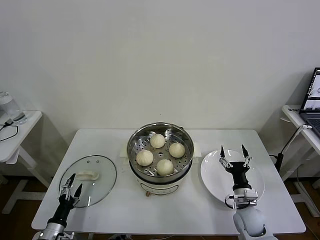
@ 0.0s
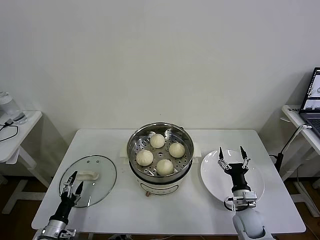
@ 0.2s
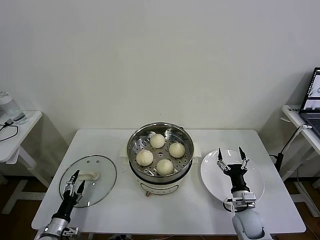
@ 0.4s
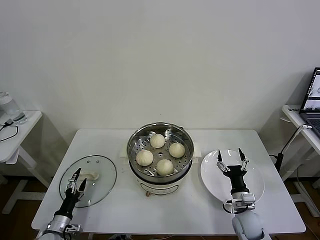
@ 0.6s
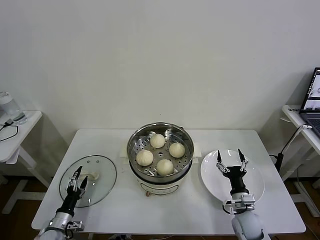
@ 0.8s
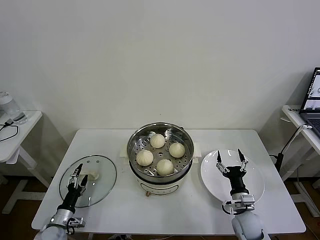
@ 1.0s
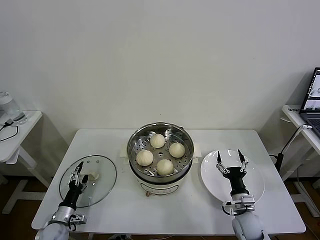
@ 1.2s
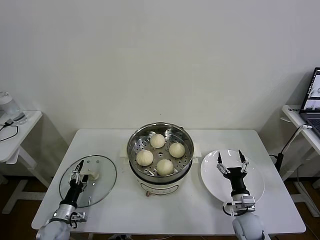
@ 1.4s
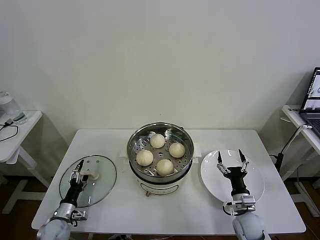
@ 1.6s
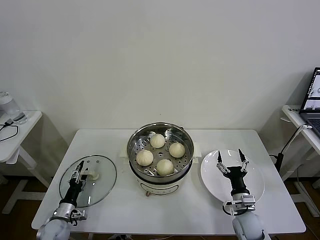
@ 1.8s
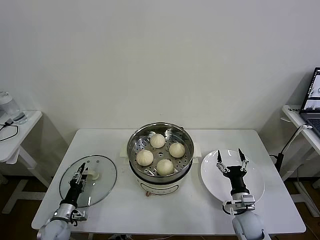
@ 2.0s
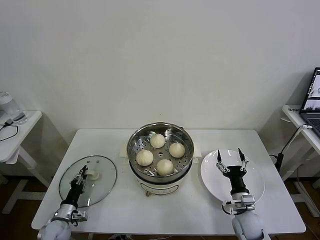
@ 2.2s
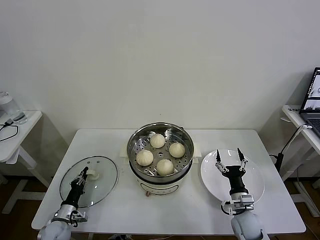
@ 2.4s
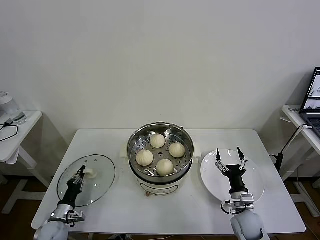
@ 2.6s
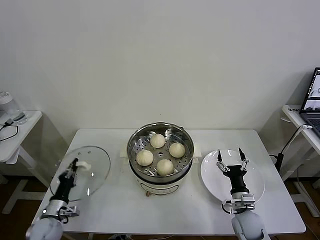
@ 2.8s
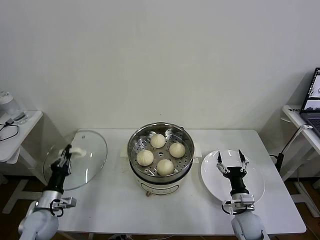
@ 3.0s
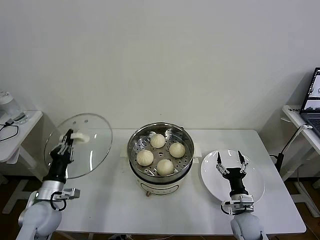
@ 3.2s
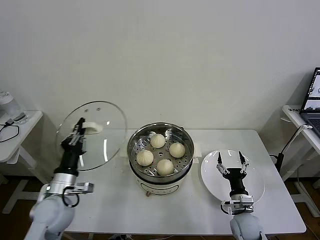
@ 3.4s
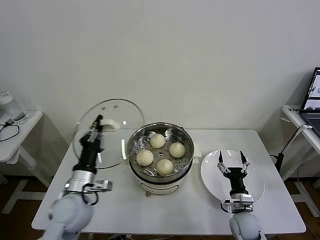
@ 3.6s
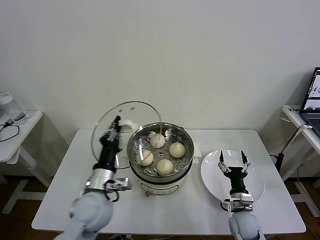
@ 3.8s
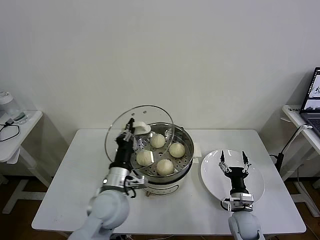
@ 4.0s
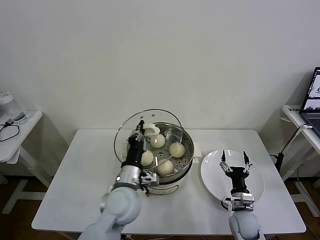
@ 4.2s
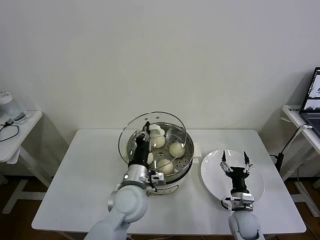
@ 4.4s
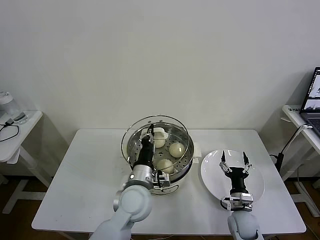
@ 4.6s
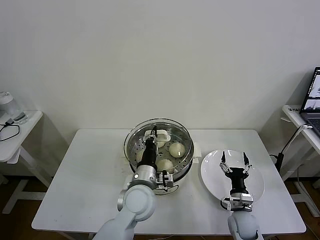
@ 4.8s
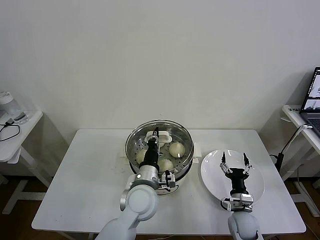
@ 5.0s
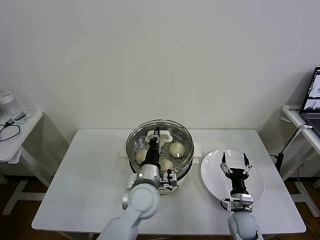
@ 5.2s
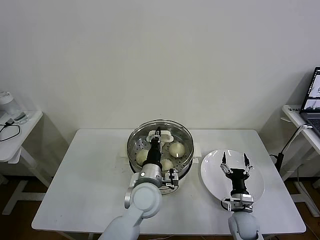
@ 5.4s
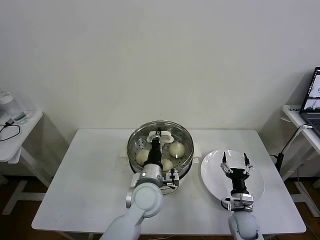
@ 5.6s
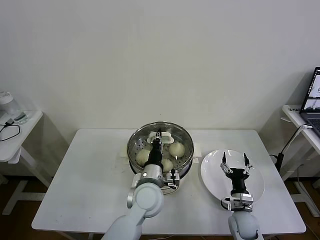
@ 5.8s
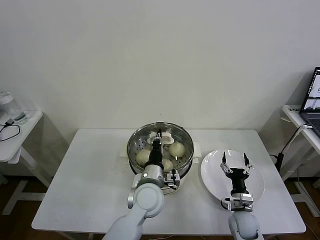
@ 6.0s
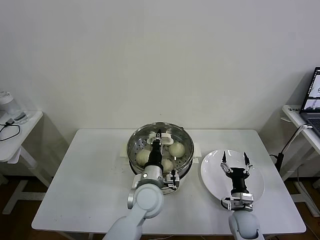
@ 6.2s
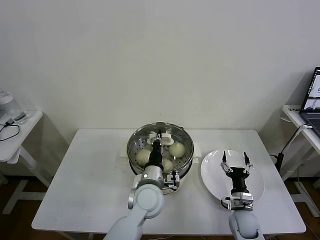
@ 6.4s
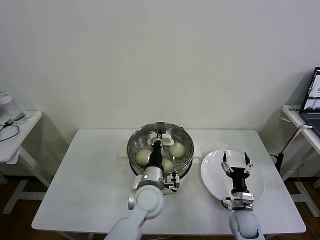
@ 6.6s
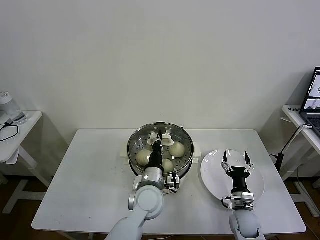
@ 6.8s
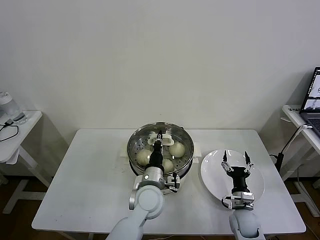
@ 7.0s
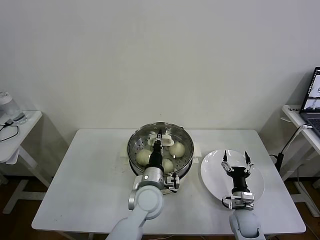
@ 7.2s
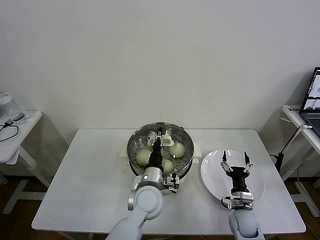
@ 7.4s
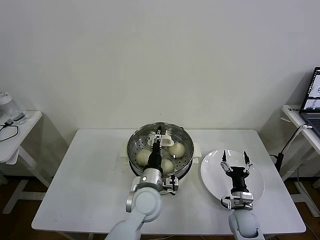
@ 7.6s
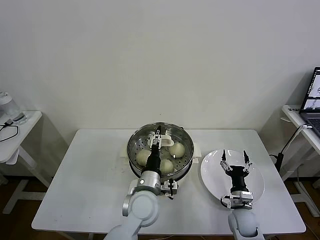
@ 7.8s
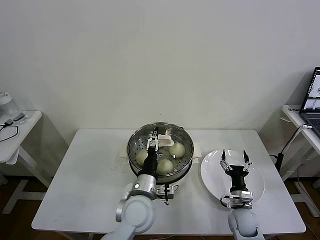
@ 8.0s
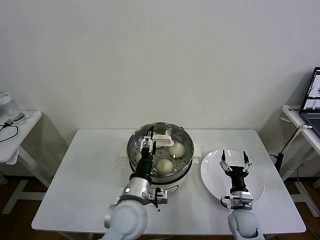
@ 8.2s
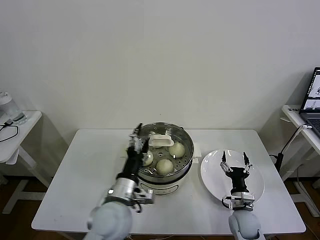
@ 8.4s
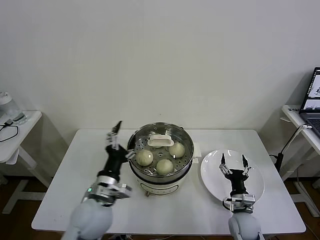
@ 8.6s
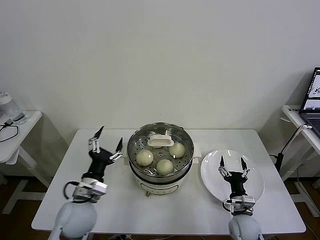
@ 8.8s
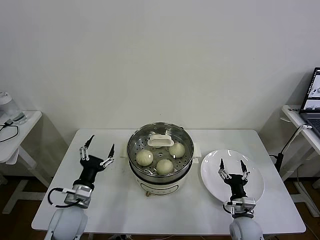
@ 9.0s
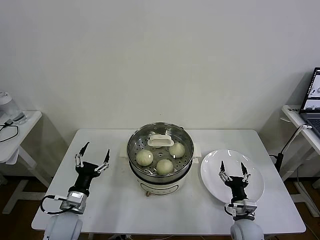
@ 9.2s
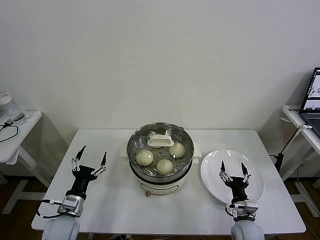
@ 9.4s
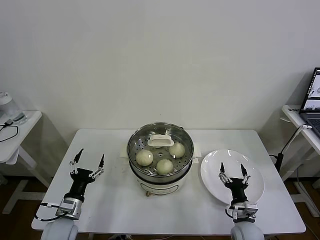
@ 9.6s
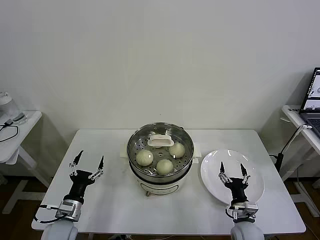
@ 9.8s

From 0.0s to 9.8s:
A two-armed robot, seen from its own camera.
Task of the whole recording: take steamed baozi put them in steamer then cover it.
Step, from 0.0s to 2.4s: Grasp the pot lid with left gripper.
Step, from 2.6s to 7.8s: Place the pot lid on the steamer with left gripper.
From 0.0s to 1.4s: The left gripper is displaced forward by some 5 cm.
From 1.4s to 2.8s: The left gripper closes up.
From 2.8s to 4.2s: The left gripper is displaced to the right and upward by approximately 35 cm.
From 4.2s to 5.6s: The left gripper is displaced to the right by roughly 5 cm.
From 5.6s to 7.0s: The grippers stay close to where they were, moving slightly.
From 7.0s to 8.4s: The left gripper shifts some 10 cm to the left, backward and upward, and opens.
From 8.4s to 9.8s: The left gripper shifts roughly 25 cm to the left and downward.
